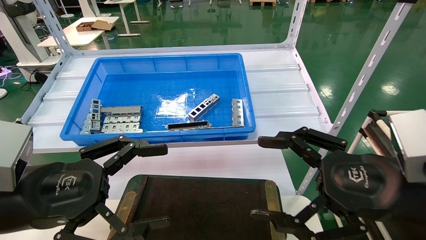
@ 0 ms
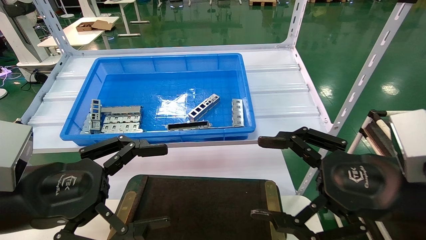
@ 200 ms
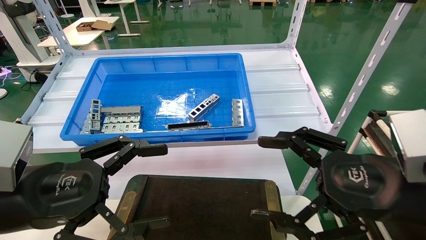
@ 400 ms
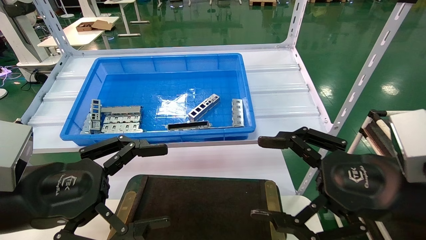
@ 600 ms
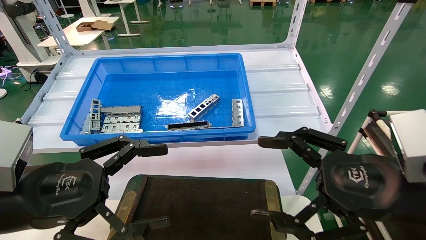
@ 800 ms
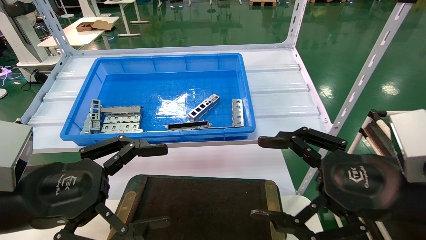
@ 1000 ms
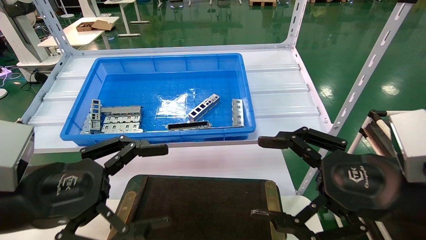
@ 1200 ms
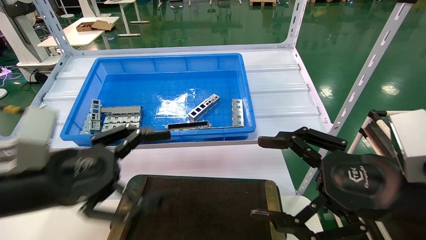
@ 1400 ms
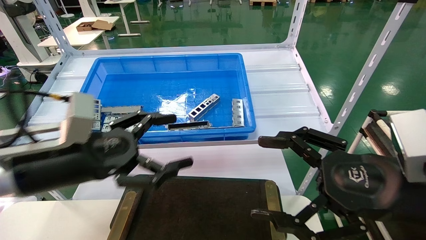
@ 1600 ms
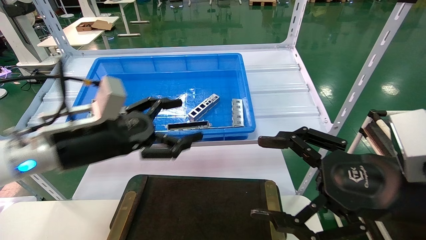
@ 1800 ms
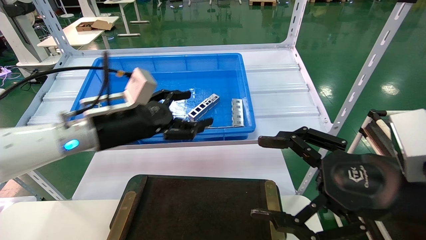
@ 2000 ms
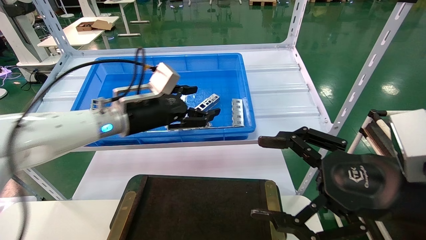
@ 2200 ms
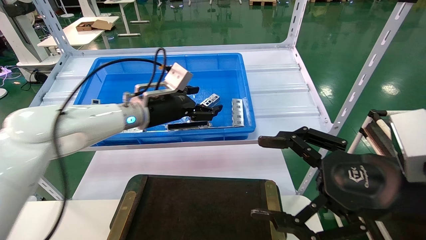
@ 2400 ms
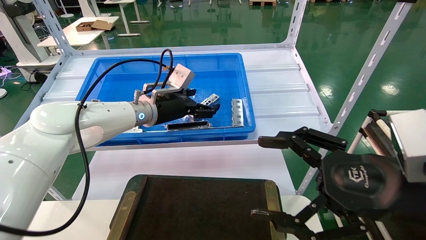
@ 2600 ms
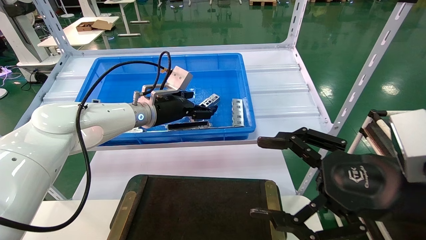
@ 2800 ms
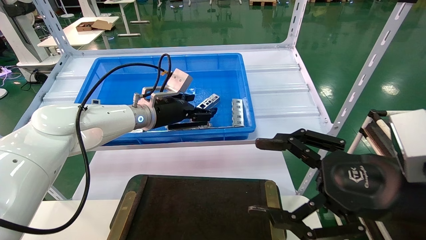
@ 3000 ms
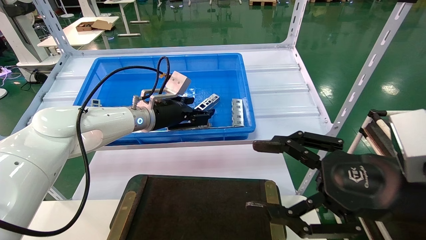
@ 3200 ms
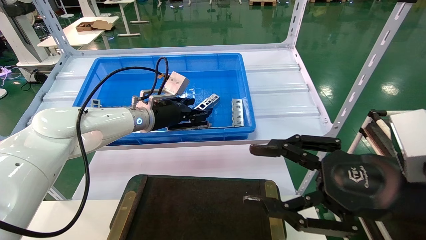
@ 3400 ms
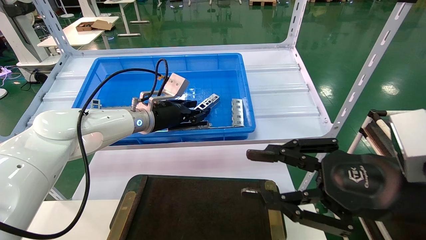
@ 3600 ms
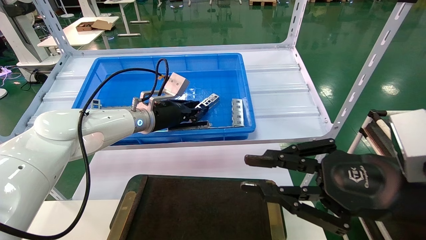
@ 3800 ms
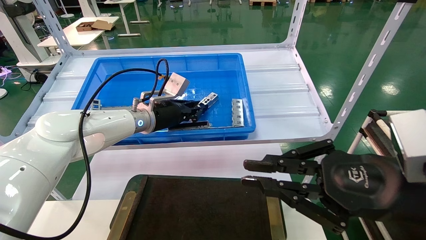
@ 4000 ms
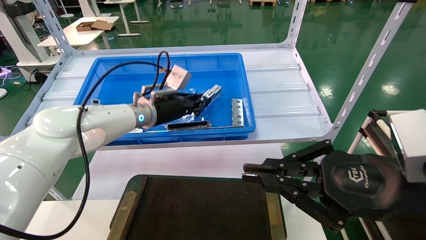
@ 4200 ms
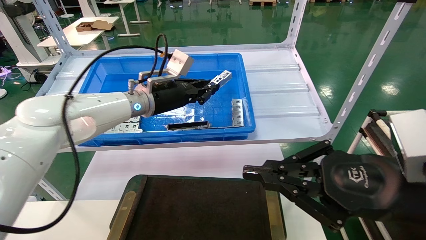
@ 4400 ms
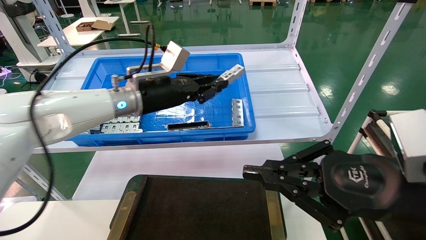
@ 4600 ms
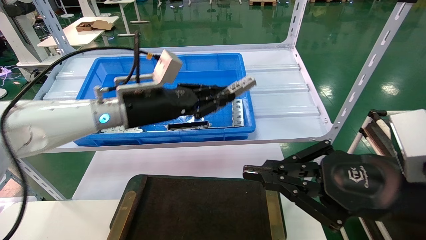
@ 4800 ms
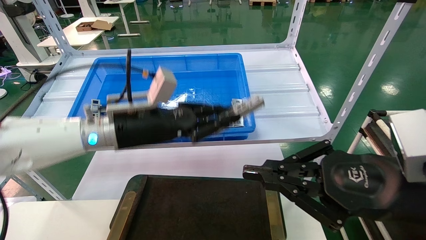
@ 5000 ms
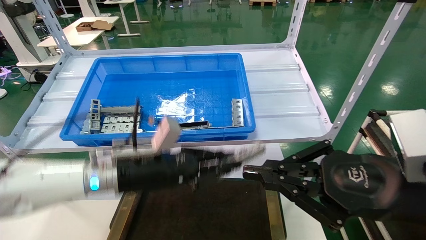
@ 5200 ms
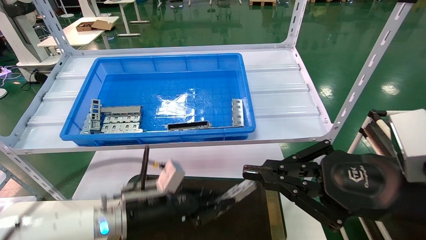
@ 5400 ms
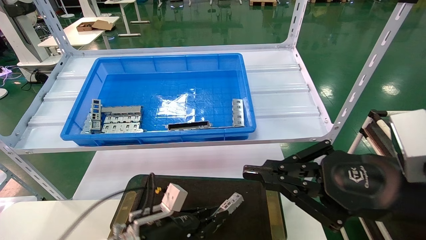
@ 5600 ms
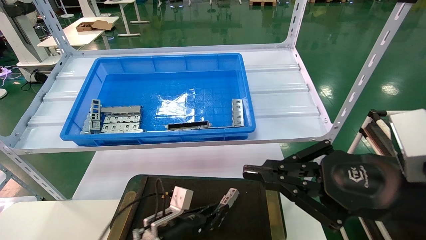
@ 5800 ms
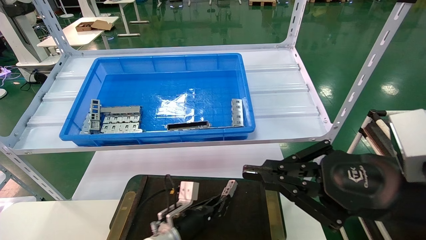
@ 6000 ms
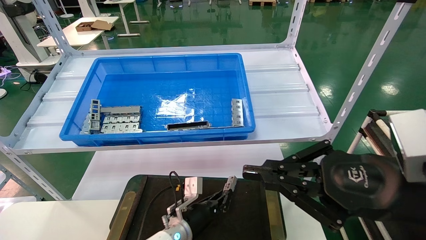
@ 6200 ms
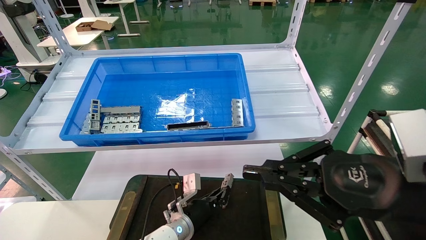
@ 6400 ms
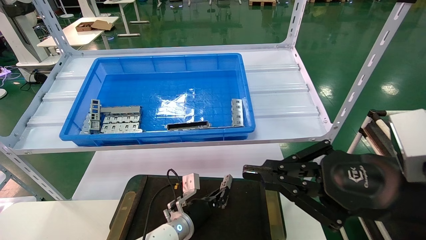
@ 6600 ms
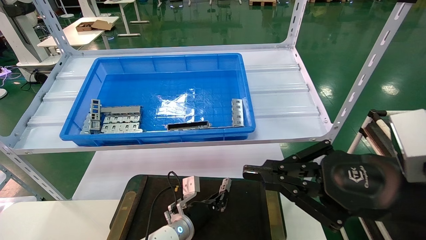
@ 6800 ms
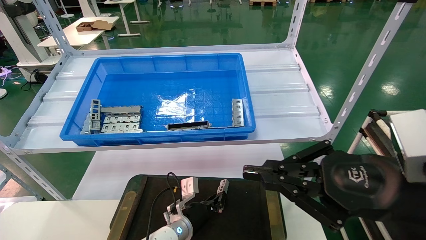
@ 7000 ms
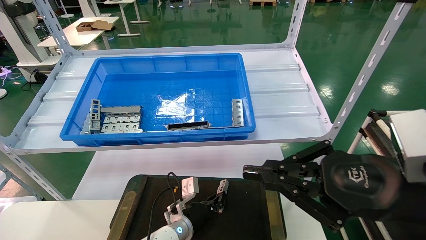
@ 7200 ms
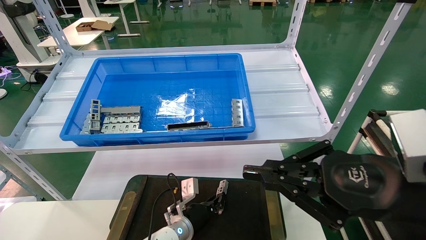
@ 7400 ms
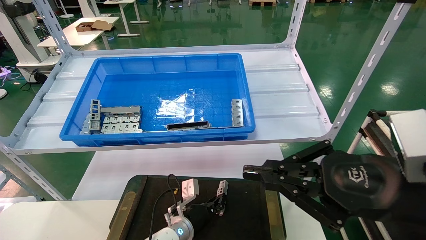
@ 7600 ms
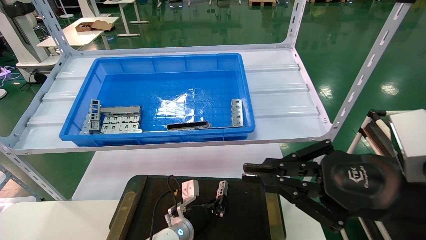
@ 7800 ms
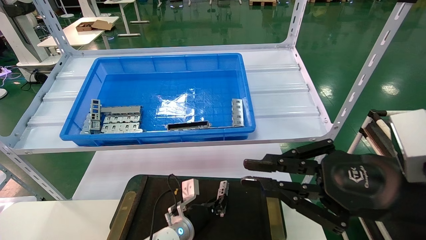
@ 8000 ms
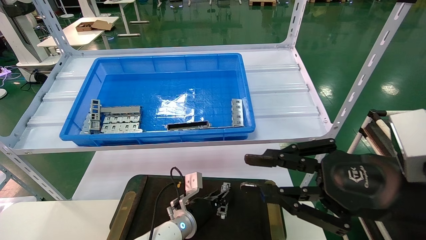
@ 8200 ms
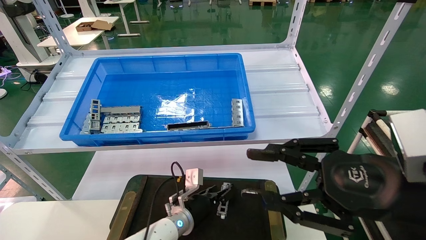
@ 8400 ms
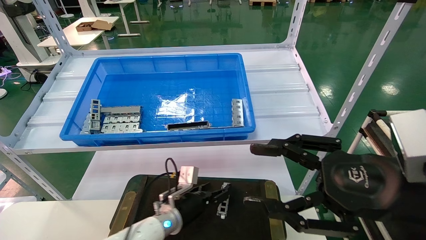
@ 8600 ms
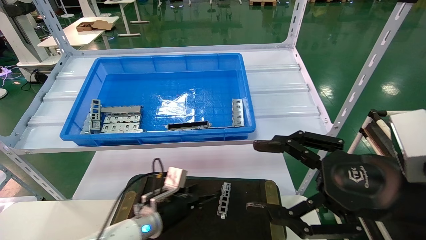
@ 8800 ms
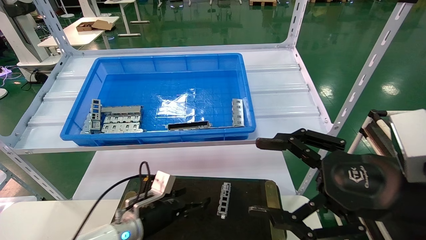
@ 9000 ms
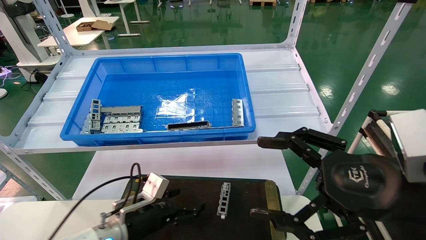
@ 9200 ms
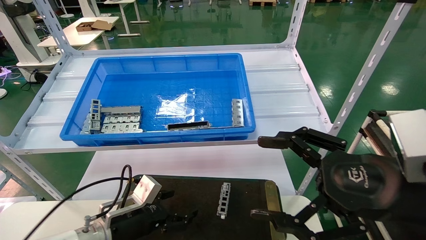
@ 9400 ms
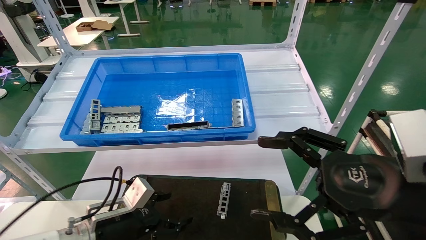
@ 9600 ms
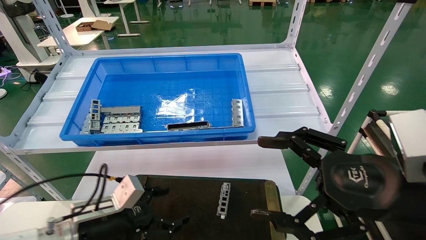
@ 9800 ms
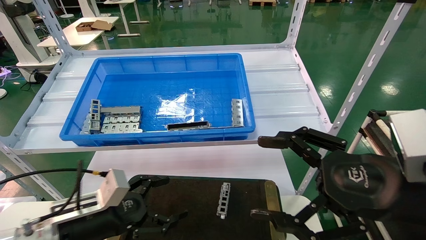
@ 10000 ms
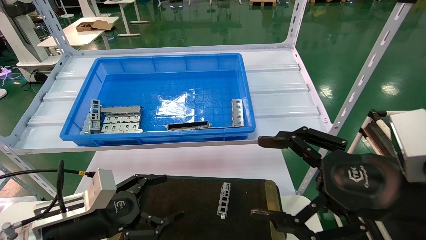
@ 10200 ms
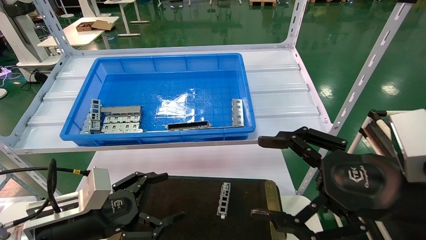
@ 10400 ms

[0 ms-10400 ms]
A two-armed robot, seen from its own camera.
Task of the whole recording: Grasp the part with one hand and place it on the black container.
Step, 1600 ms to 3800 ms: Pick up the front USB bracket from the feeding area.
Step, 4000 ms to 7800 ms: Place the front USB bracket into the box.
0 ms to 1400 ms: The grippers move only a little.
1400 ms to 3000 ms: The left gripper shifts about 30 cm forward and to the right.
3000 ms to 4400 ms: The right gripper closes its fingers. Meanwhile the left gripper closes its fingers.
4400 ms to 6000 ms: The left gripper shifts approximately 30 cm downward.
6000 ms to 7400 ms: The grippers move only a little.
7400 ms to 9000 ms: The left gripper heads to the left, upward and backward, covering approximately 15 cm, and opens. Meanwhile the right gripper opens up.
9000 ms to 10400 ms: The left gripper heads backward, to the left and upward, covering about 15 cm.

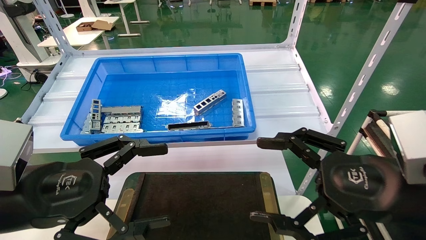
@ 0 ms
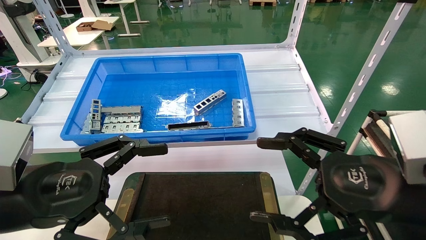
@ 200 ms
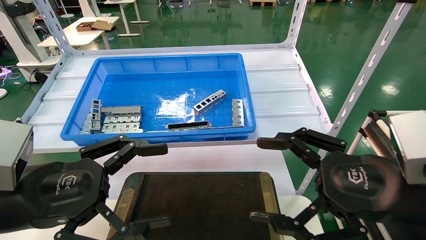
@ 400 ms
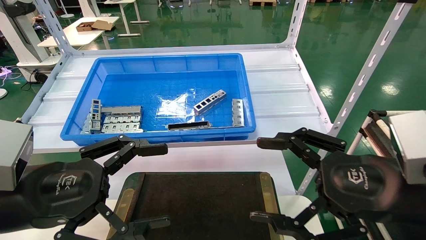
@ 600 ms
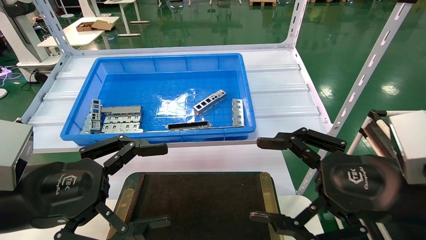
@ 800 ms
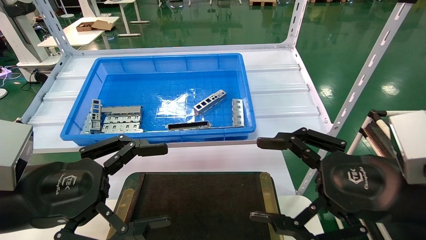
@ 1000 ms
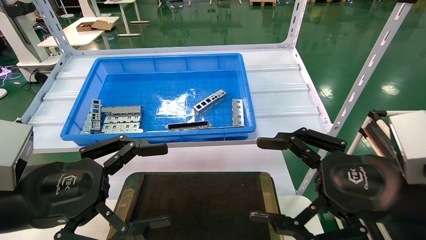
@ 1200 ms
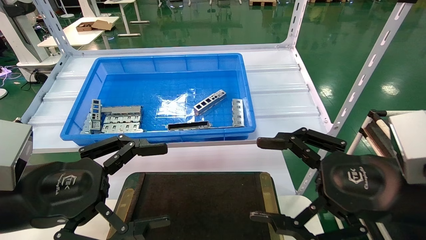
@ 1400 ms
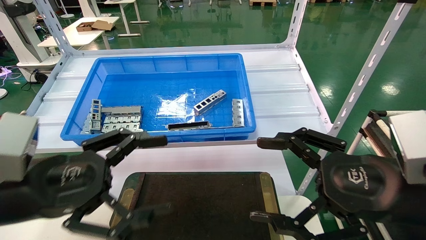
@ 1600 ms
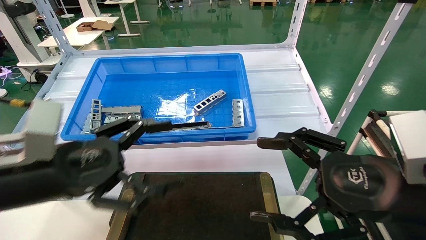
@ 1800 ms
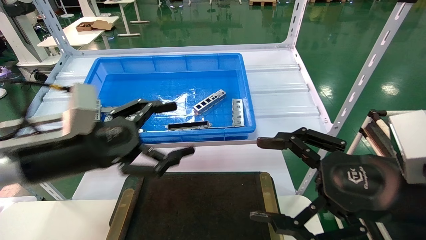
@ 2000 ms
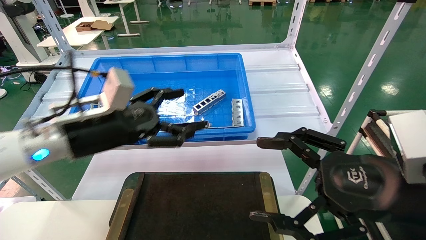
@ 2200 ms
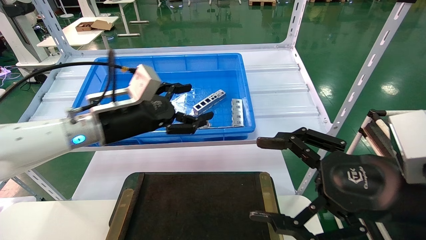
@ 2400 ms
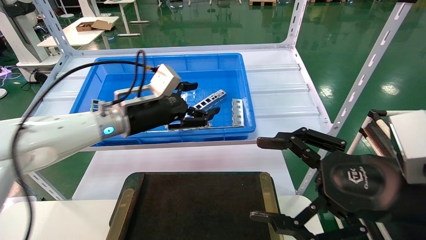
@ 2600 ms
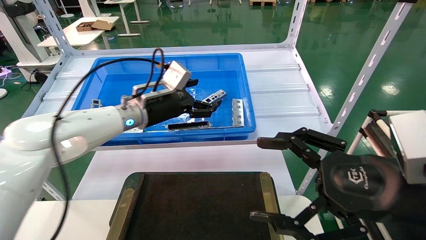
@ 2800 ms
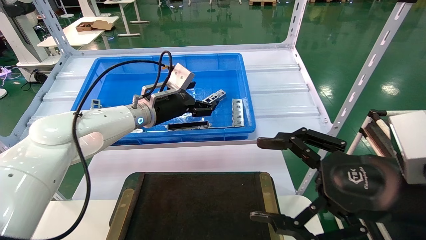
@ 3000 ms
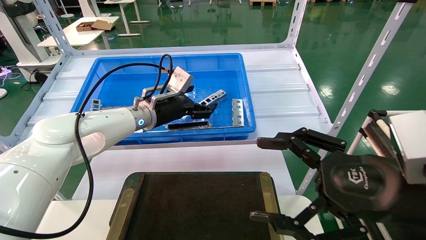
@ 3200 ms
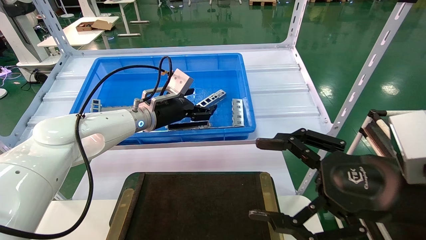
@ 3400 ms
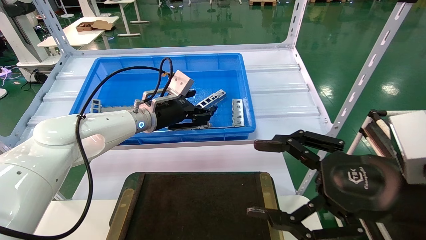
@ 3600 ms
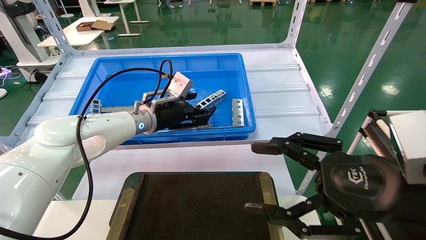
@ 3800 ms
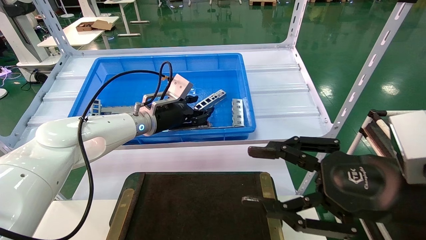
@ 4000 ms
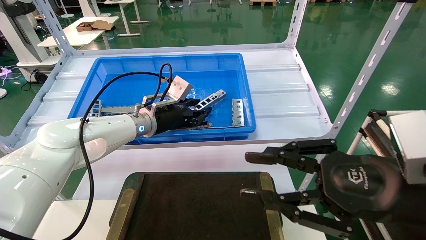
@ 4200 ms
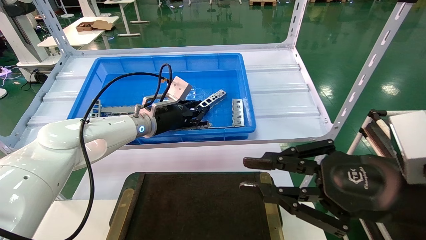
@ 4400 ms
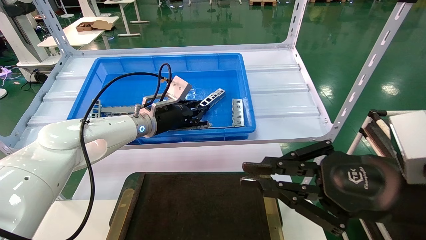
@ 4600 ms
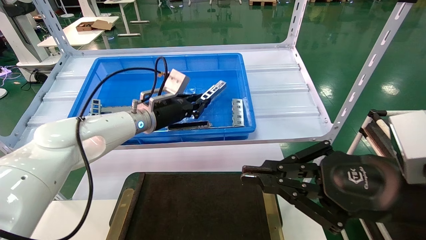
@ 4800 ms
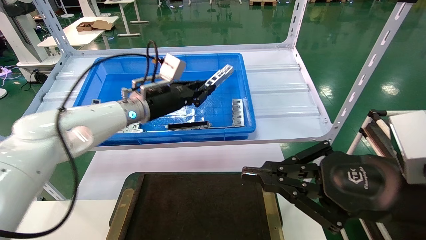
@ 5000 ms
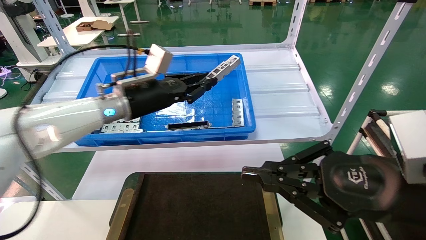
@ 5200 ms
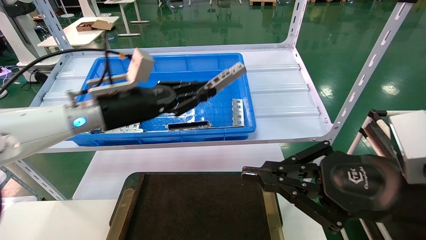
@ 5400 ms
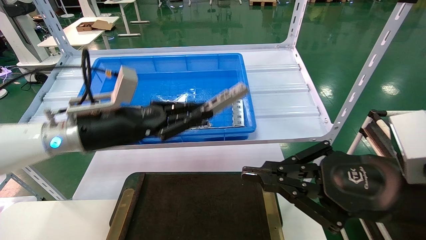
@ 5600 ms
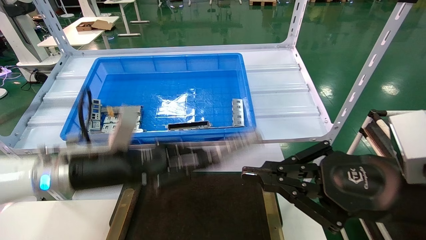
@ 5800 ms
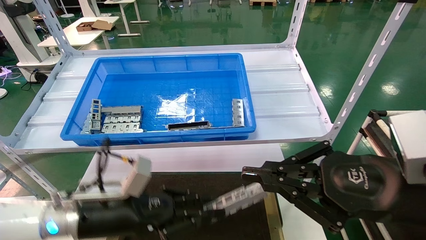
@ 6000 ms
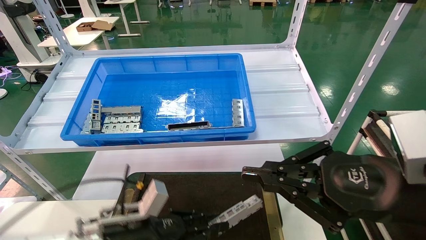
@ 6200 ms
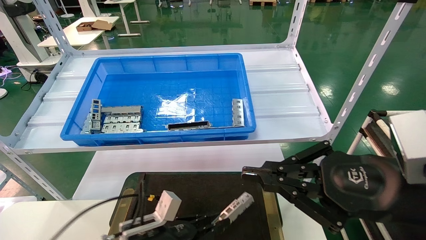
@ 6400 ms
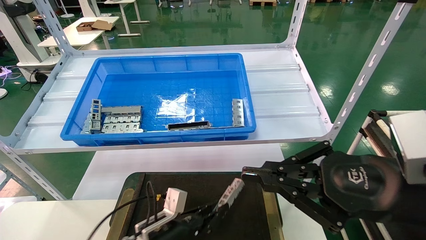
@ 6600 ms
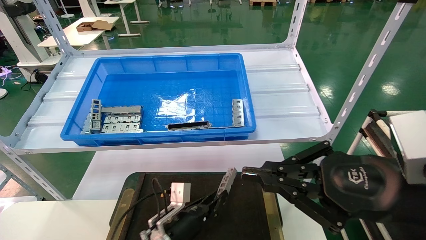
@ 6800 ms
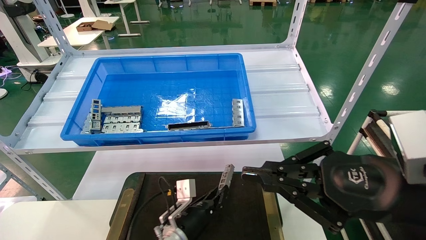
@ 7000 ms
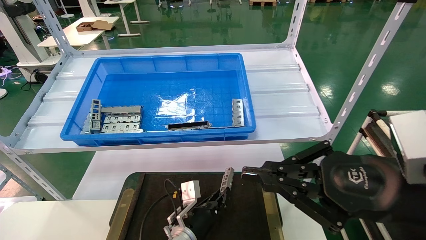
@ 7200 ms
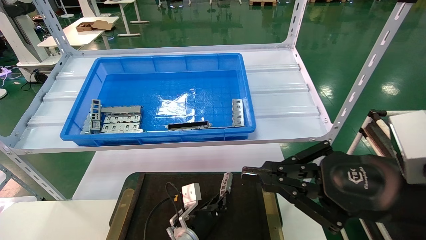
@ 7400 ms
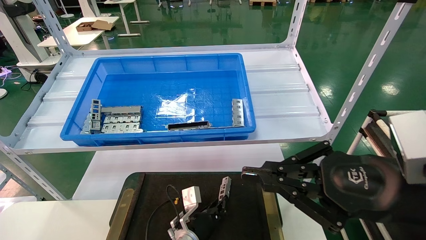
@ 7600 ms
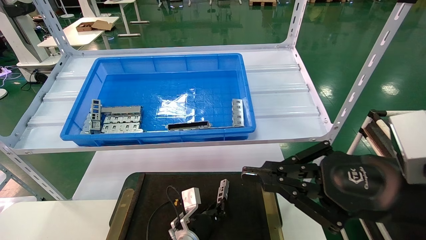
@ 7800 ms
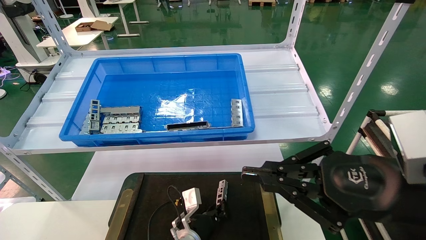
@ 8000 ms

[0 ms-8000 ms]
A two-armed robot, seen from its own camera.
Task of the whole recording: Grasp the part with one hand and place it on the black container.
Step, 1800 ms to 5000 ms: Pick up the front USB bracket from the feeding area.
0 ms to 1600 ms: The grippers make only small movements.
1600 ms to 3200 ms: The left gripper goes approximately 30 cm forward and to the right.
3200 ms to 4800 ms: The left gripper closes; the right gripper closes.
4800 ms to 6400 ms: The left gripper is displaced downward and backward by some 30 cm.
6400 ms to 8000 ms: The left gripper moves to the right, downward and forward, about 15 cm.
